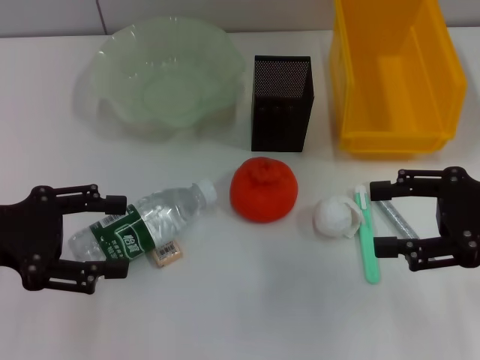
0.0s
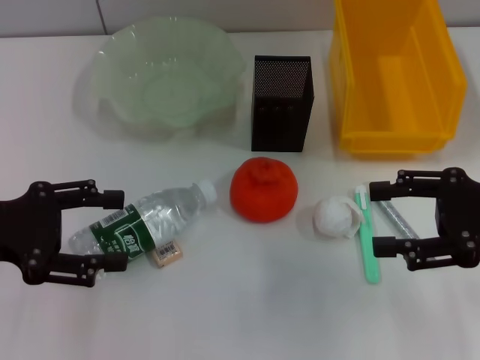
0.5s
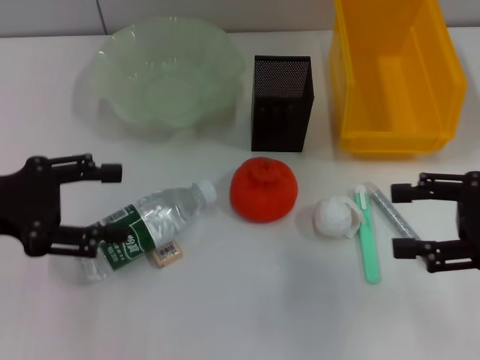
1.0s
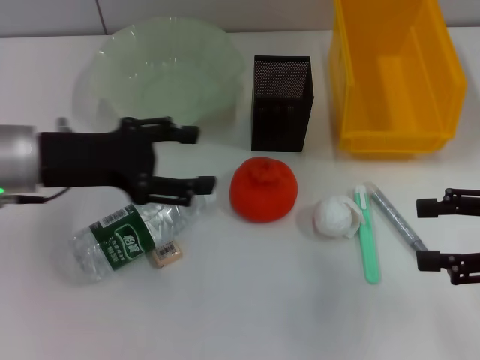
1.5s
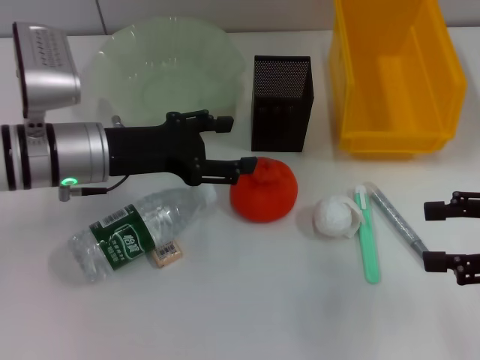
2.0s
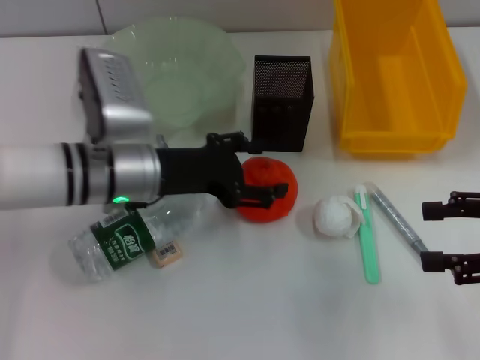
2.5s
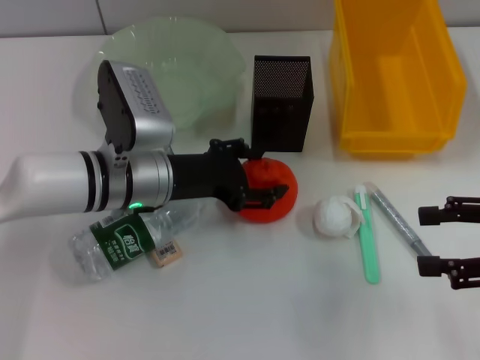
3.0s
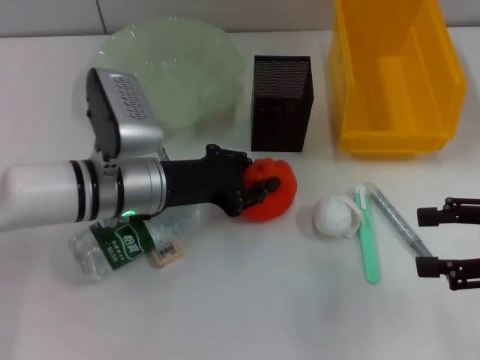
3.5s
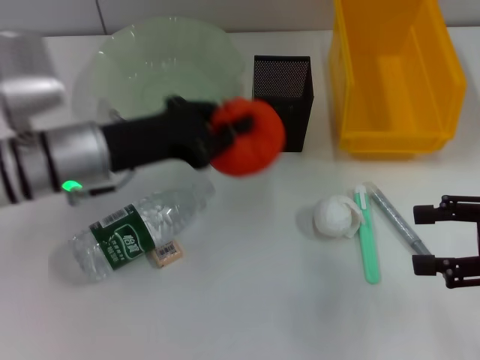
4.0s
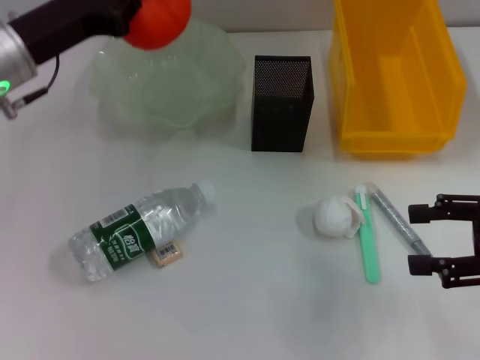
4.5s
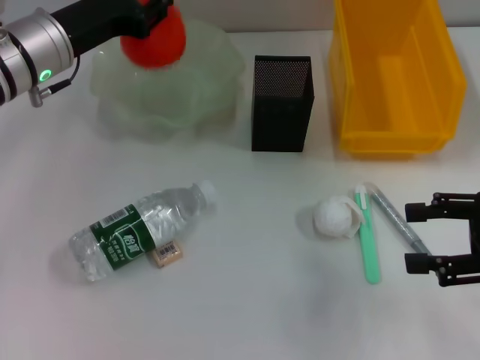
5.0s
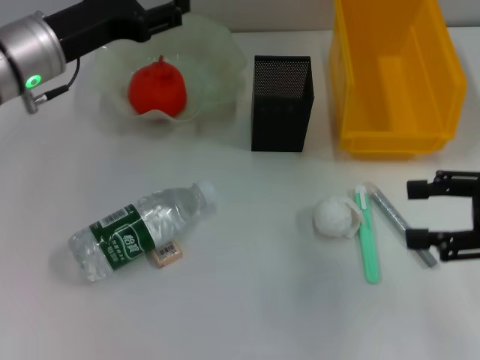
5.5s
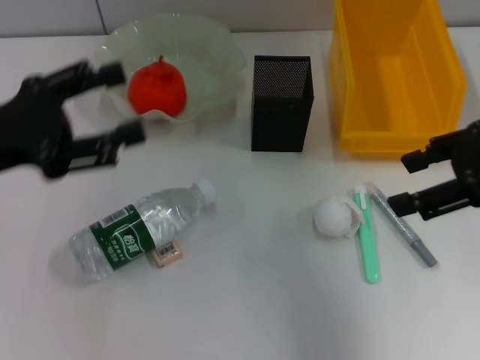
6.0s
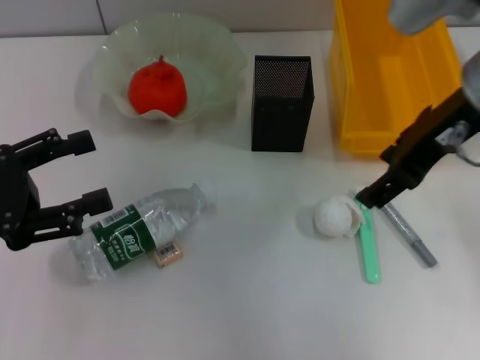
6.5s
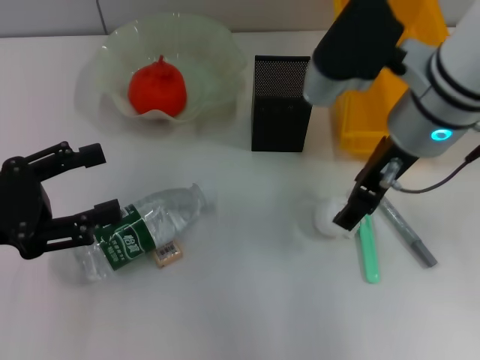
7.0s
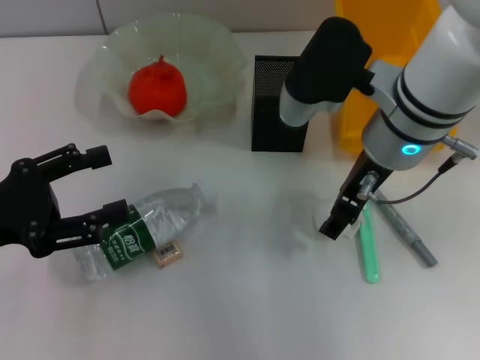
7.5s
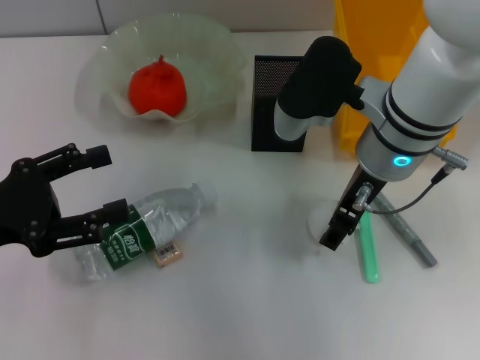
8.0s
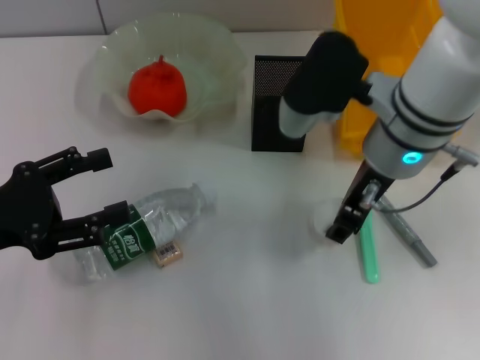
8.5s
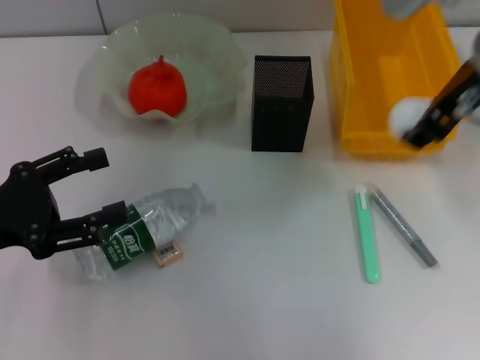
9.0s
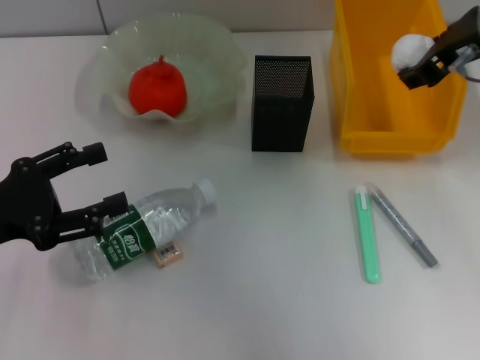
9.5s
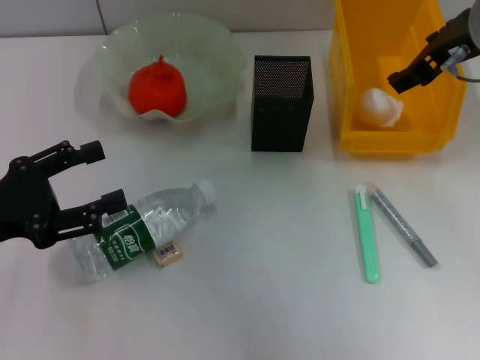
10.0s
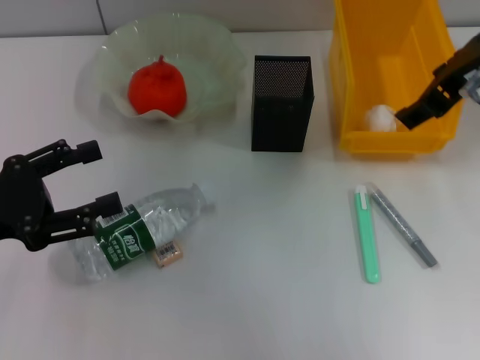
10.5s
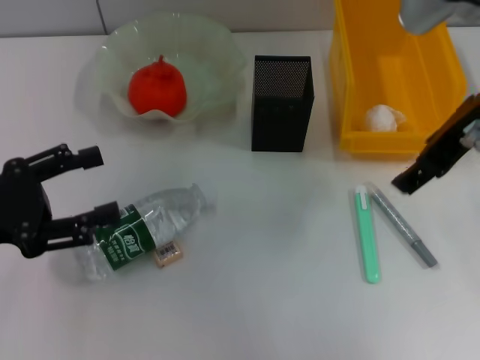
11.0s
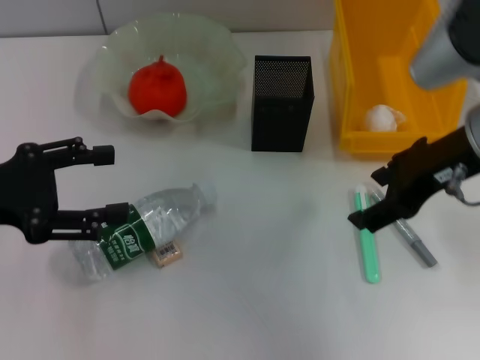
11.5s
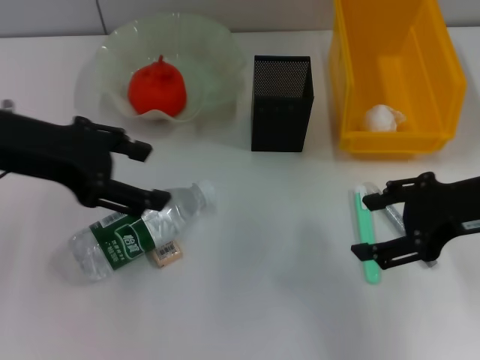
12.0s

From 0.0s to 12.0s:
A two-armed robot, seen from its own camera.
Step, from 0.0s to 3.0s: Grab the orange with the left hand.
Step, from 3.5s to 5.0s: Place the orange into the fruit bowl with the left hand.
Step, from 5.5s to 8.0s: Grab the paper ball with the right hand.
Step, from 8.5s to 10.0s: Place the paper ball into the trash can with the right hand.
From 0.0s to 2.0s: The left gripper travels to the right and forward by some 15 cm.
From 2.0s to 4.0s: The left gripper closes.
From 4.0s to 6.0s: The right gripper moves upward and to the left, about 10 cm, while the left gripper is displaced to the left and upward by about 10 cm, and opens its fingers.
From 6.0s to 8.0s: The left gripper ends up roughly 5 cm from where it was. The right gripper heads to the left and downward, covering approximately 15 cm.
From 8.0s to 10.0s: The right gripper travels to the right and upward by about 10 cm.
From 10.0s to 12.0s: The right gripper goes about 15 cm backward and downward, while the left gripper goes roughly 15 cm upward, to the right and forward.

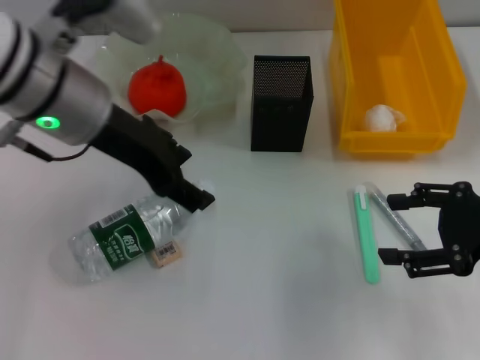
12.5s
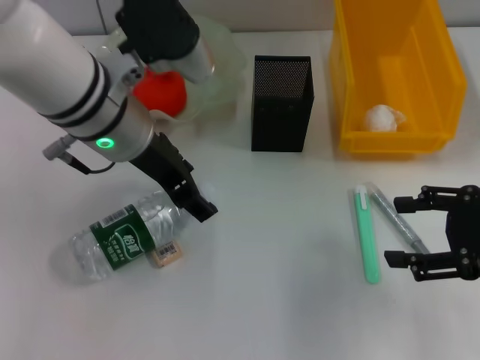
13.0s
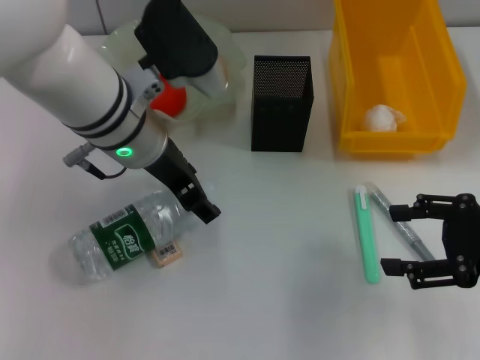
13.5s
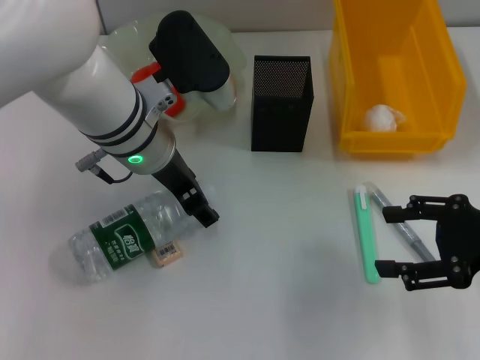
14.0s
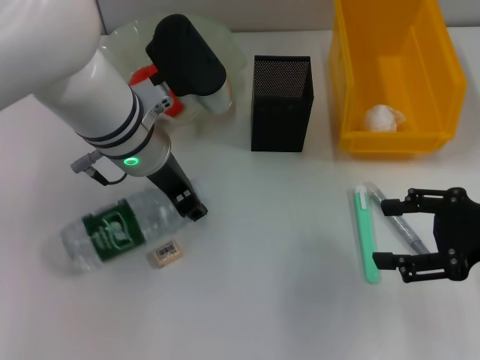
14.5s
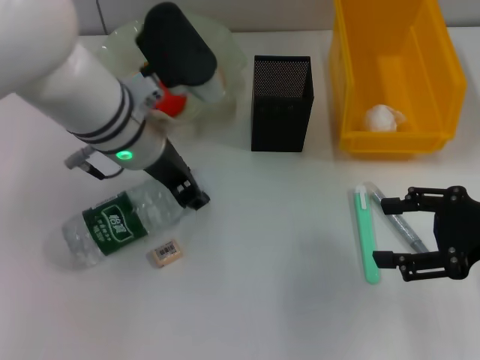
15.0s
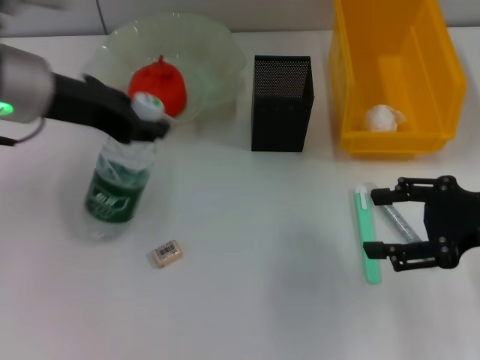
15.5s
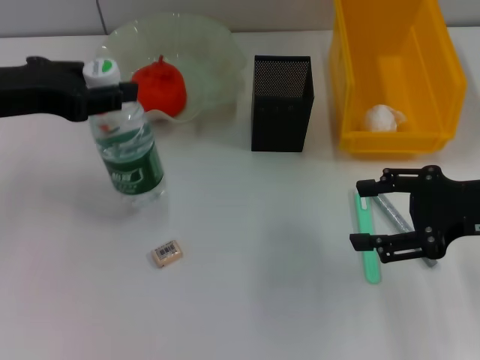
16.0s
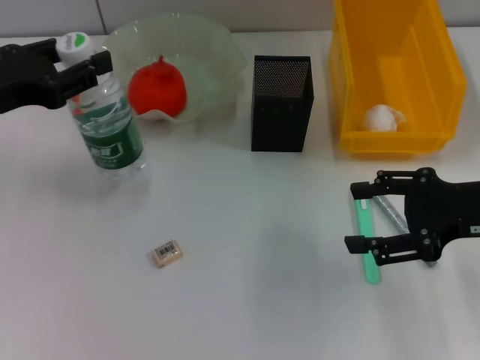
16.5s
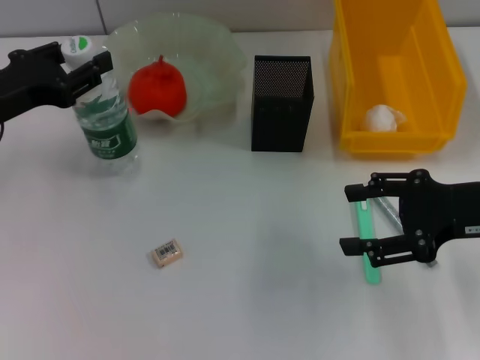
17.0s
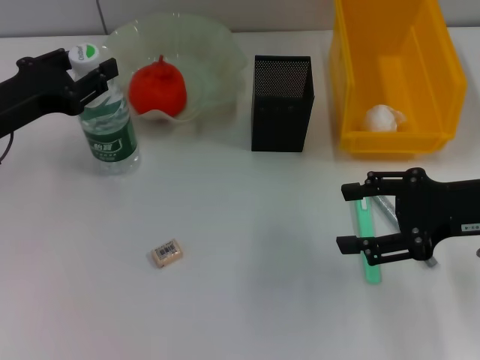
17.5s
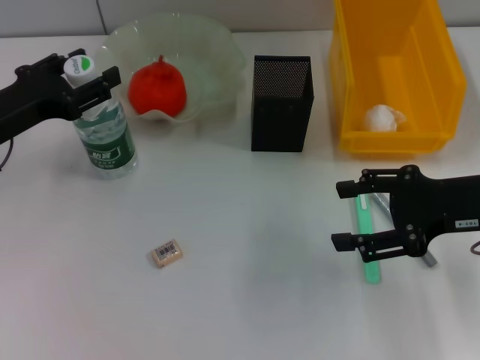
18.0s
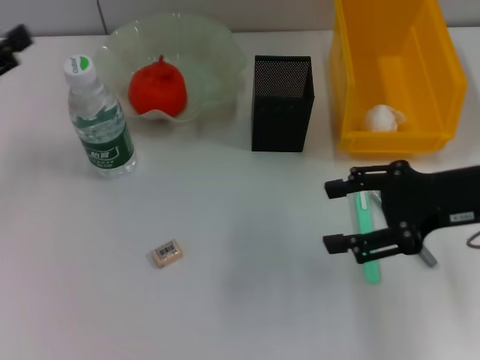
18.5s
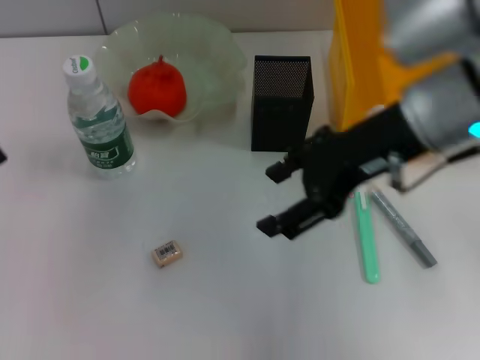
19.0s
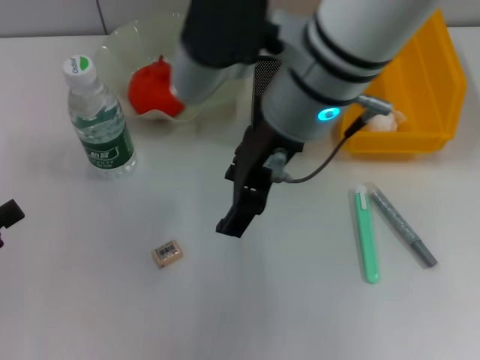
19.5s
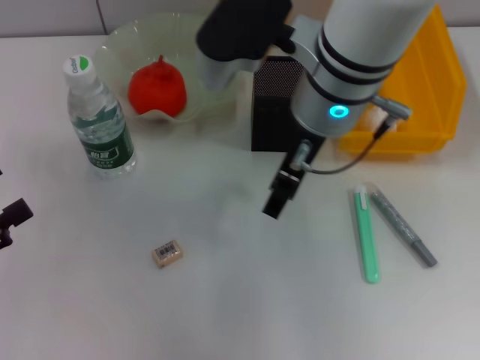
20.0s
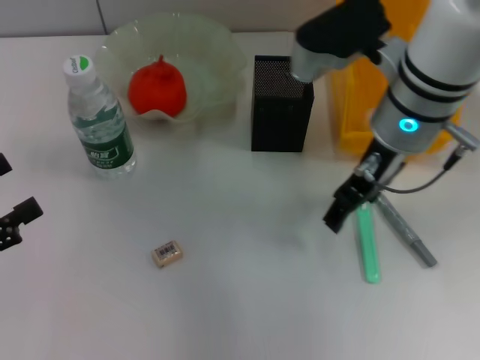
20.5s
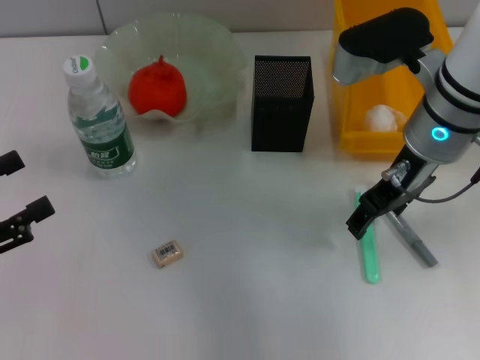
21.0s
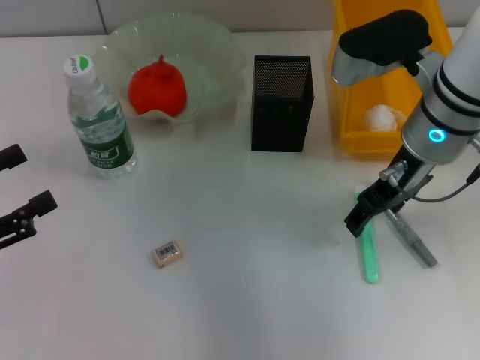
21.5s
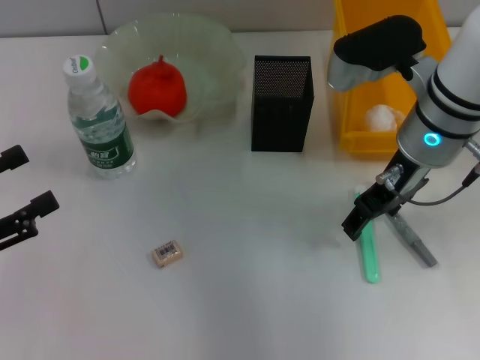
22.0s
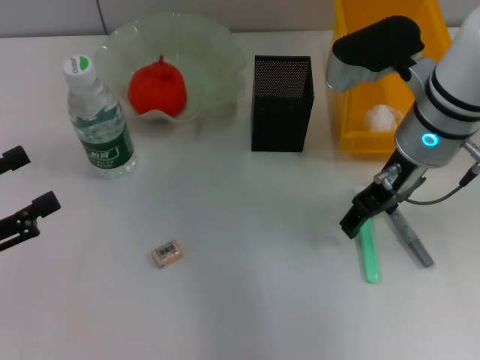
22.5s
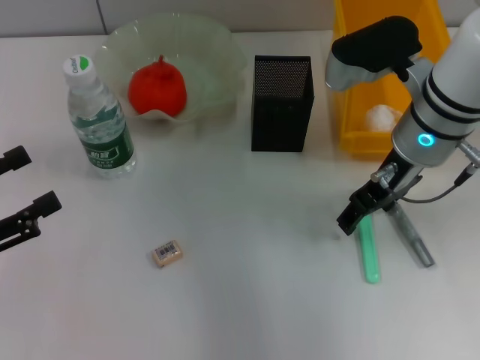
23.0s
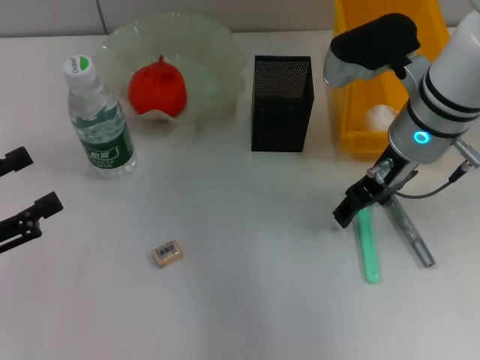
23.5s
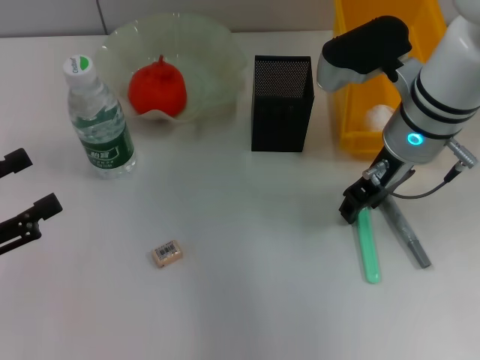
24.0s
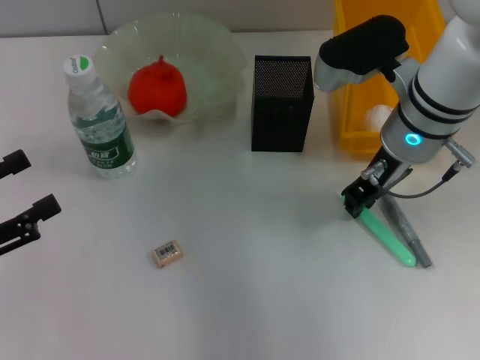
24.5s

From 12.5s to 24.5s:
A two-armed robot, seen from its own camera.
Step, from 12.5s to 14.5s: Grab the water bottle with the left hand.
Step, from 15.0s to 18.0s: Place the water bottle on the table with the left hand.
Step, from 18.5s to 24.0s: Grab the blue utility knife with the right hand.
From 12.5s to 14.5s: The left gripper moves downward, roughly 10 cm, and closes its fingers.
From 14.5s to 16.5s: The left gripper shifts some 20 cm to the left.
From 16.5s to 18.5s: The left gripper travels to the left by some 5 cm, and opens up.
From 18.5s to 20.5s: The left gripper is displaced backward by about 10 cm. Meanwhile the right gripper moves to the left and forward, some 15 cm.
From 20.5s to 22.5s: The grippers make only small movements.
From 22.5s to 24.5s: The right gripper closes up.

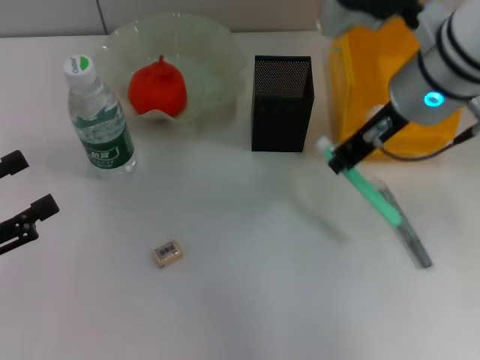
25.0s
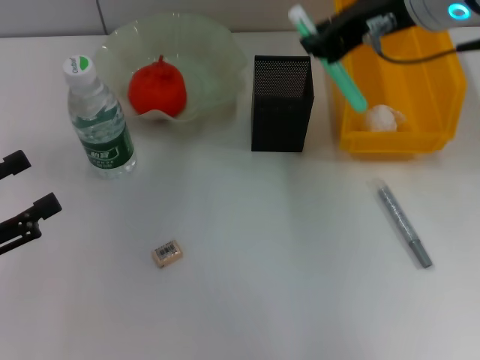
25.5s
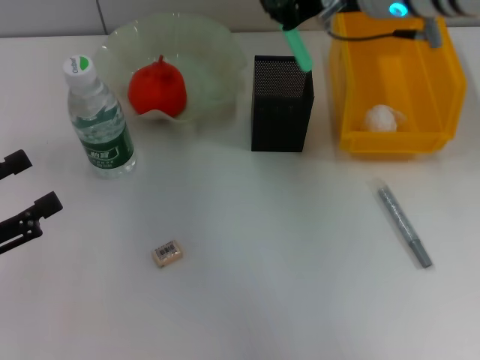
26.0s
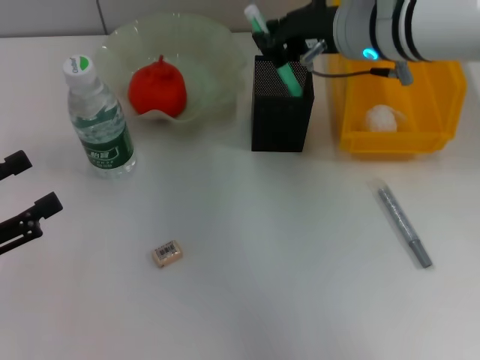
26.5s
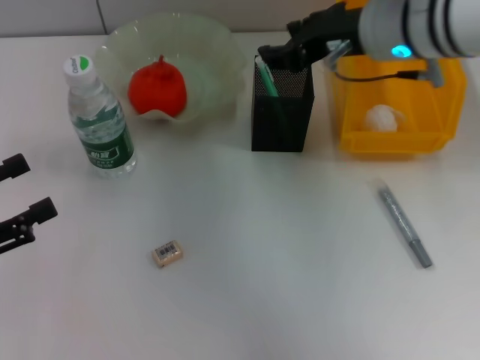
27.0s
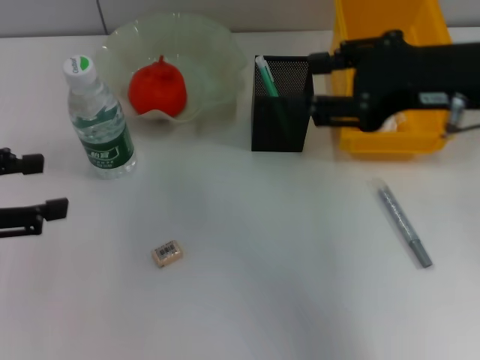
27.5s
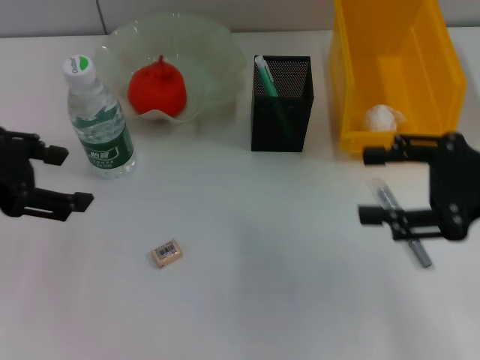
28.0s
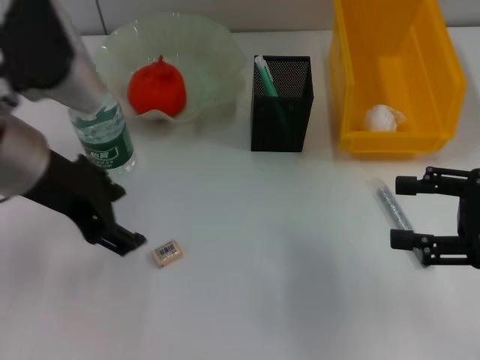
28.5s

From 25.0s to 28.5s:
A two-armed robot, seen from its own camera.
Step, from 25.0s to 26.5s: Place the blue utility knife into the pen holder with the right hand.
From 25.0s to 27.0s: The right gripper travels upward and back again, some 10 cm each way, and opens.
From 27.0s to 28.5s: The left gripper is displaced to the right, forward and upward by some 20 cm. Meanwhile the right gripper travels to the right, backward and downward by about 25 cm.
